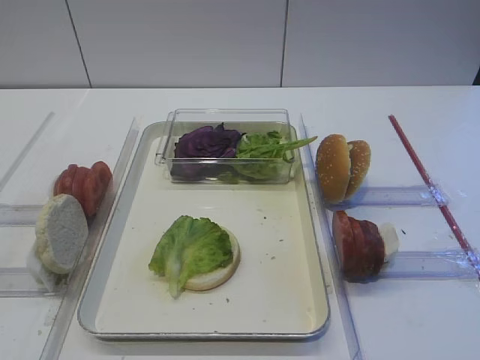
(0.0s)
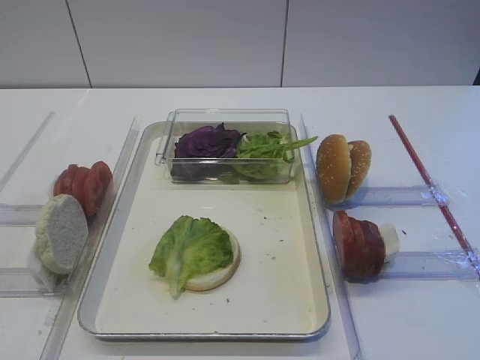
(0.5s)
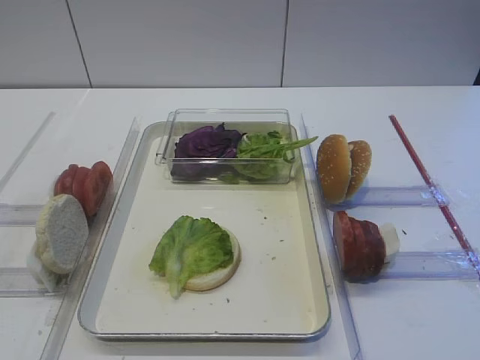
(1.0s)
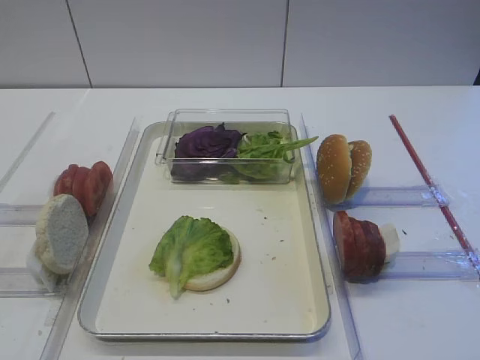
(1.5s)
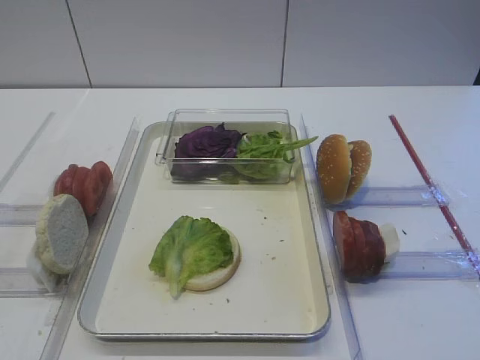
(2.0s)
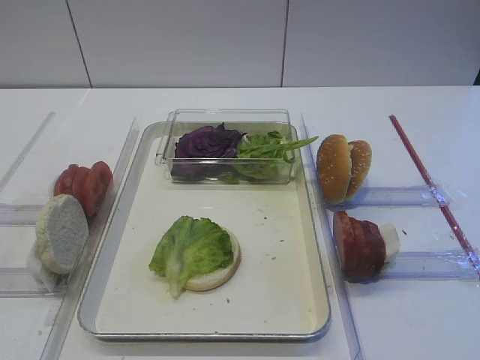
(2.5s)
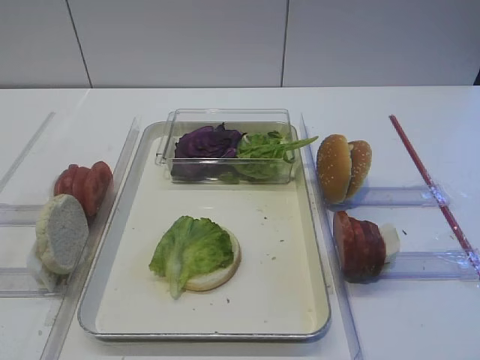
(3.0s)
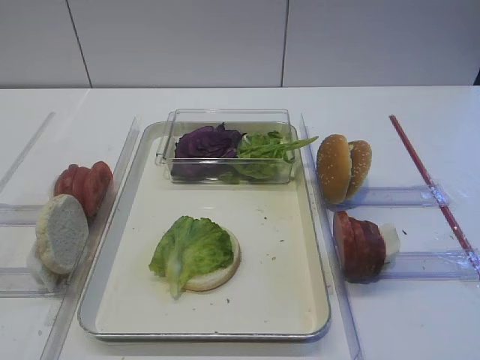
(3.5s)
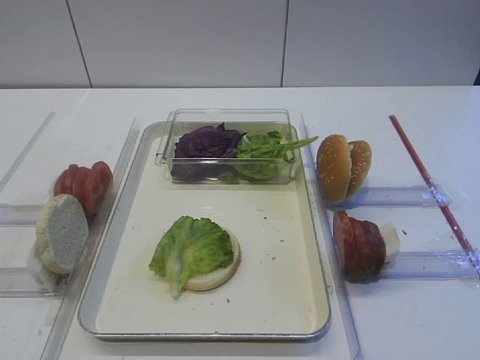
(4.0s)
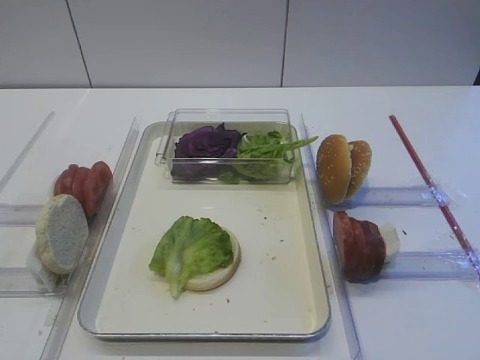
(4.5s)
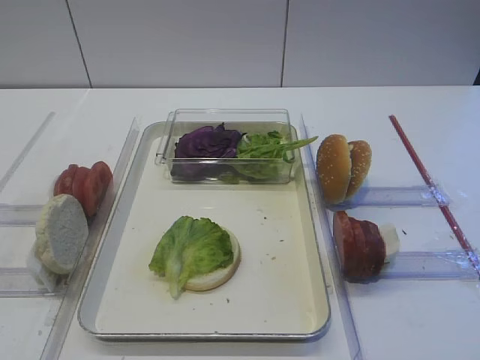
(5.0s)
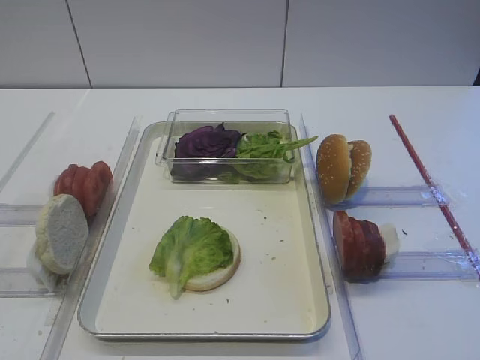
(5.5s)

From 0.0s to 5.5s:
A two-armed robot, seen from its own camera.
From 0.0s to 5.5s: Both grippers stay about where they are.

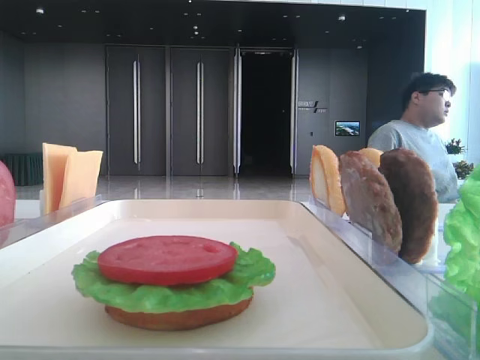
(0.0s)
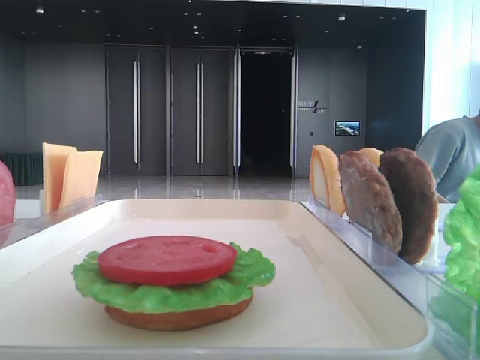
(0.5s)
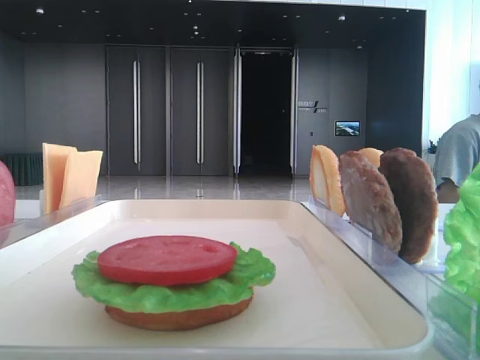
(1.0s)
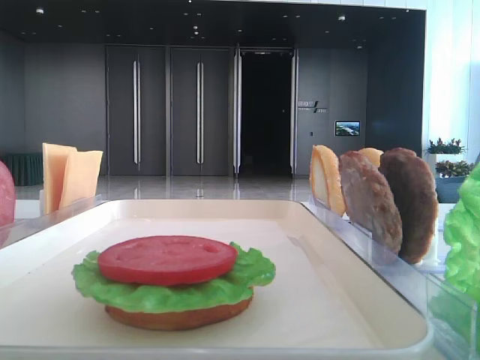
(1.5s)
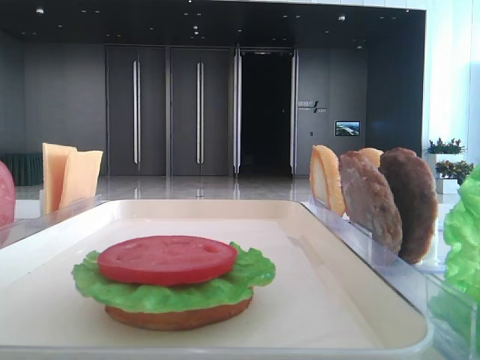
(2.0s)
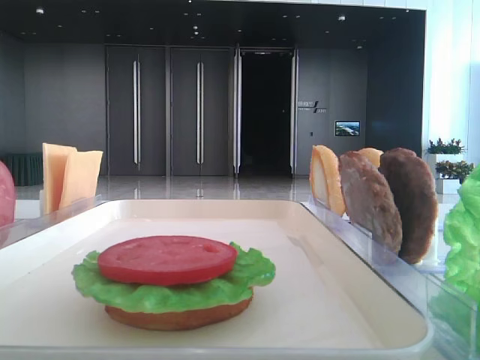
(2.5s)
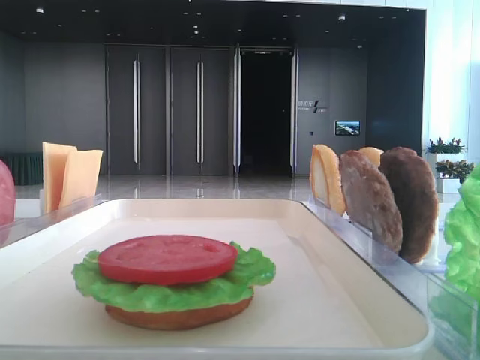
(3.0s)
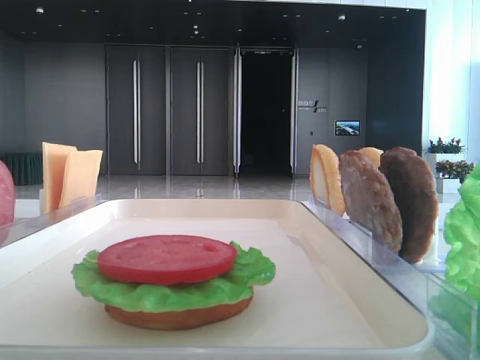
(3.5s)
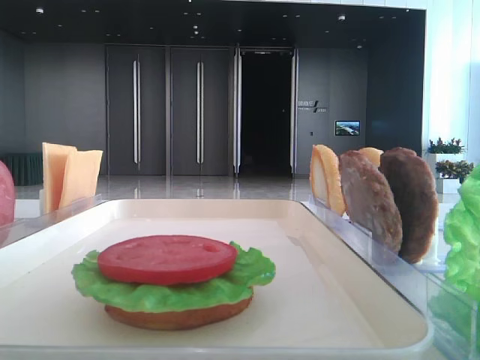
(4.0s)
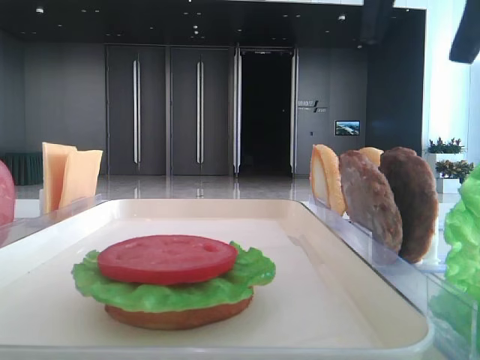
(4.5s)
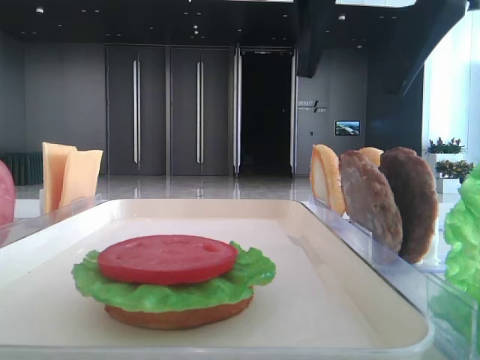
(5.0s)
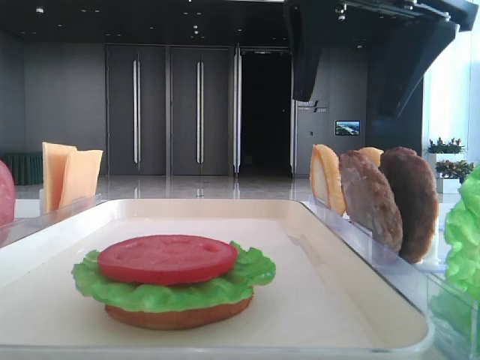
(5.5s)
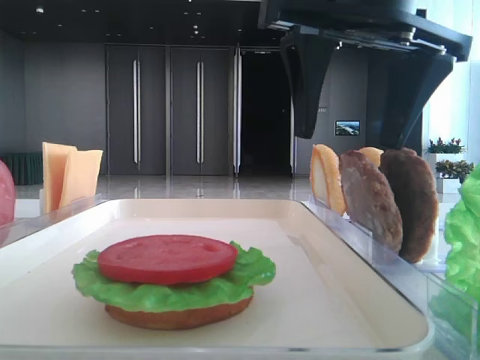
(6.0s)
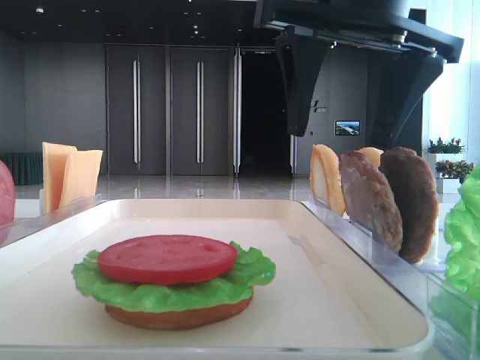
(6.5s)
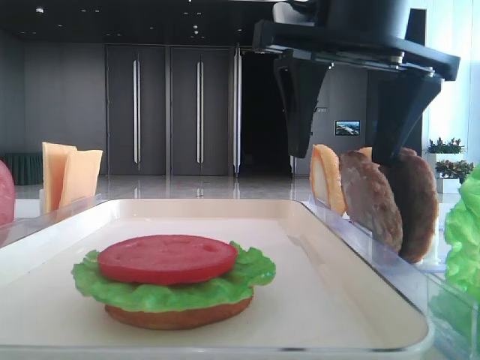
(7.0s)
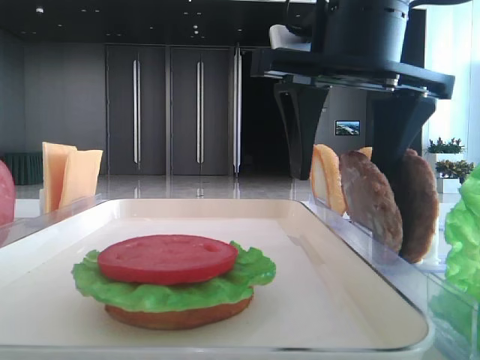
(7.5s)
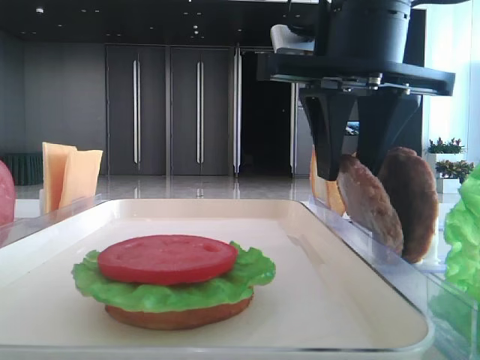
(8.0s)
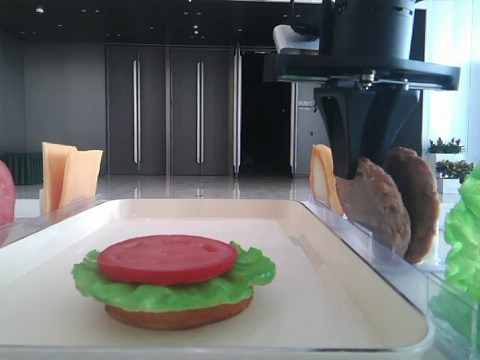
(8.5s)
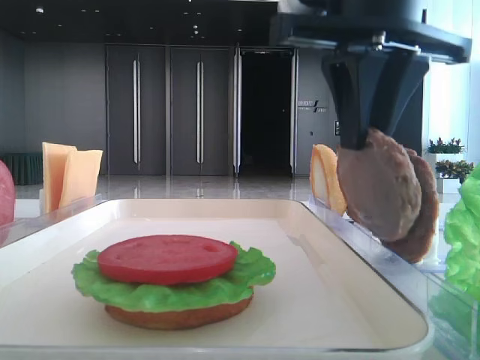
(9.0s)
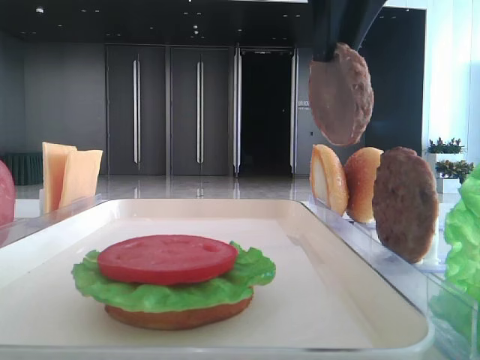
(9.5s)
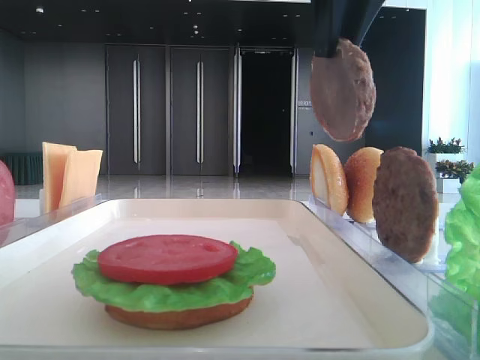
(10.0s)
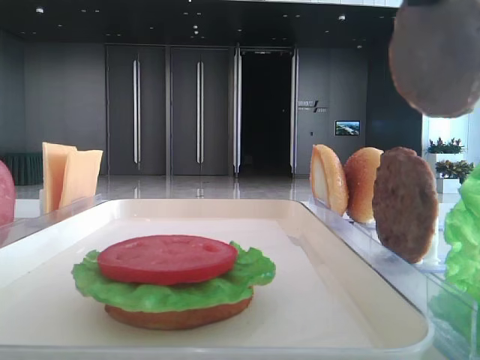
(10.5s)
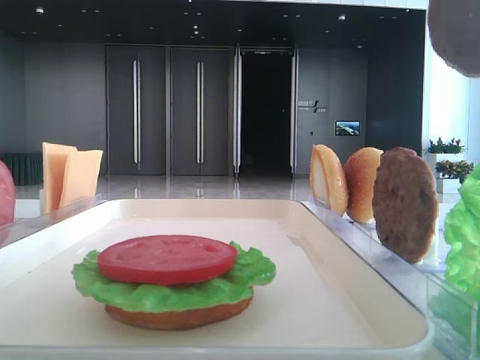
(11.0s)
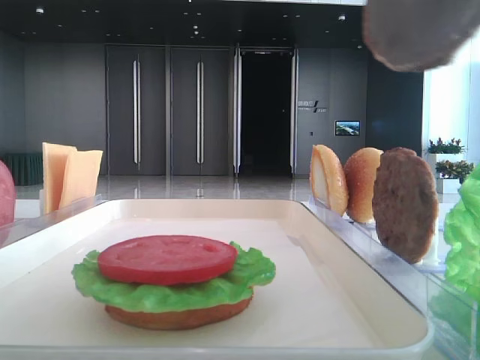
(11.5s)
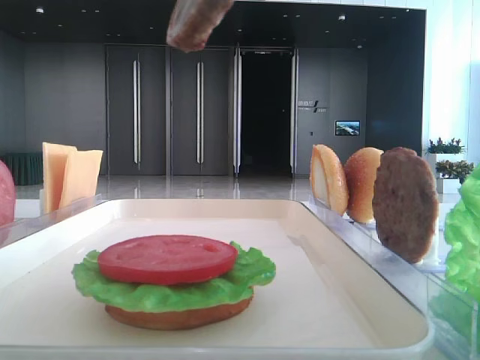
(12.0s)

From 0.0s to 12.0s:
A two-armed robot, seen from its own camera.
Step, from 0.0s to 8.5s: Grab the patty with the right hand.
From 4.0s to 6.0s: The right gripper moves to the left and downward, approximately 20 cm.
From 6.0s to 8.0s: The right gripper closes its fingers.
From 8.0s to 10.0s: The right gripper travels upward by some 10 cm.
From 10.0s to 12.0s: The right gripper travels backward by approximately 10 cm.

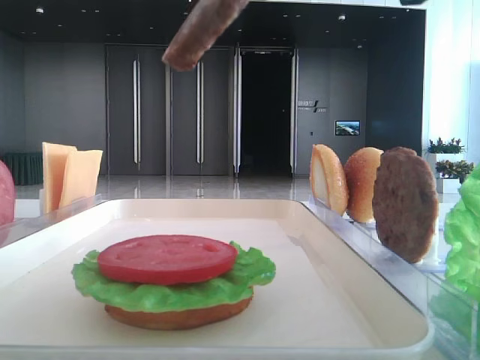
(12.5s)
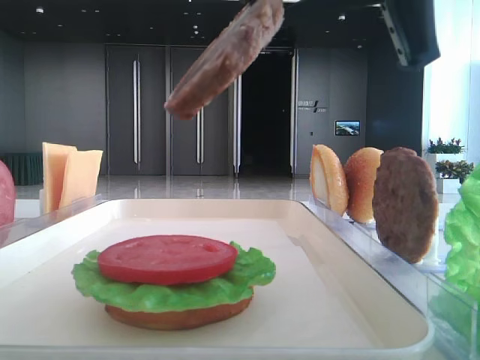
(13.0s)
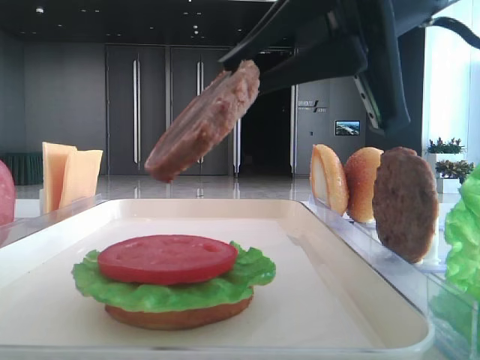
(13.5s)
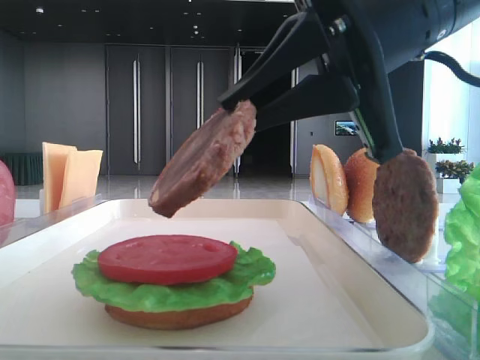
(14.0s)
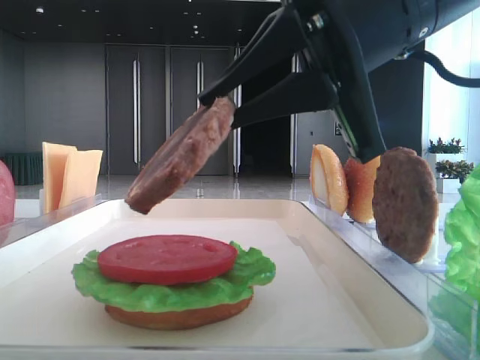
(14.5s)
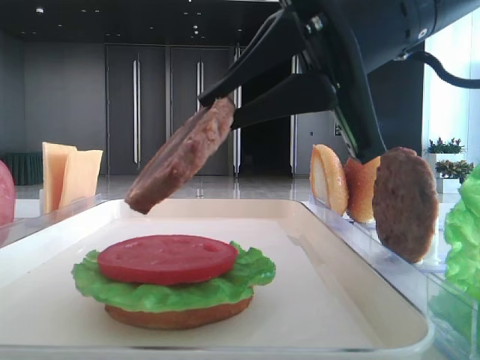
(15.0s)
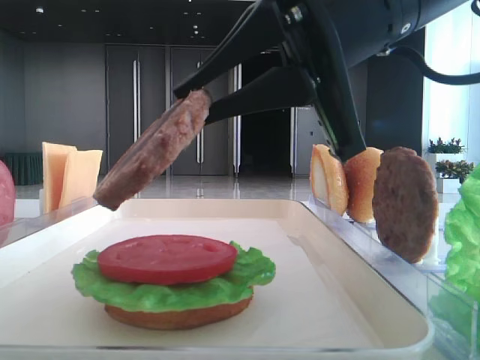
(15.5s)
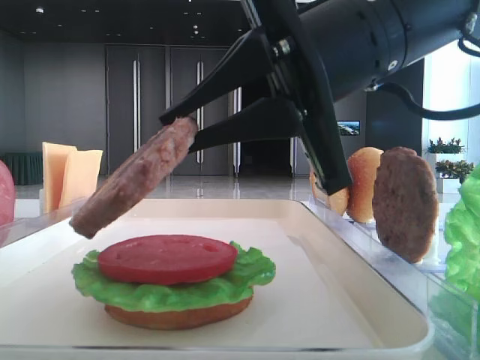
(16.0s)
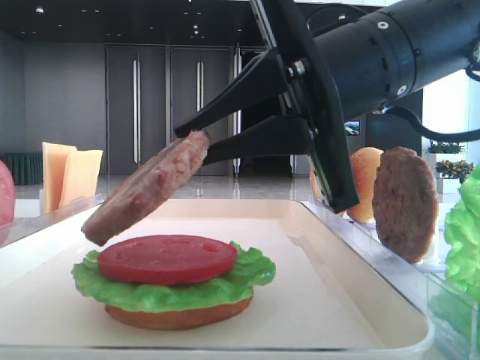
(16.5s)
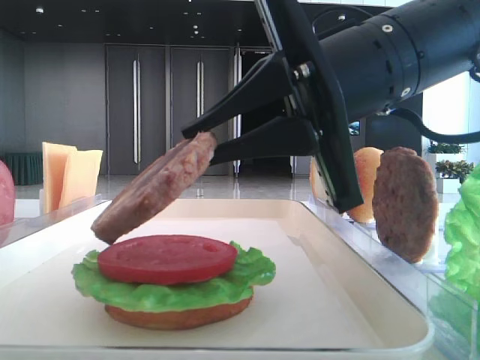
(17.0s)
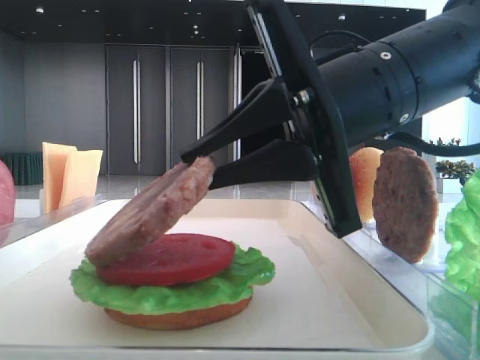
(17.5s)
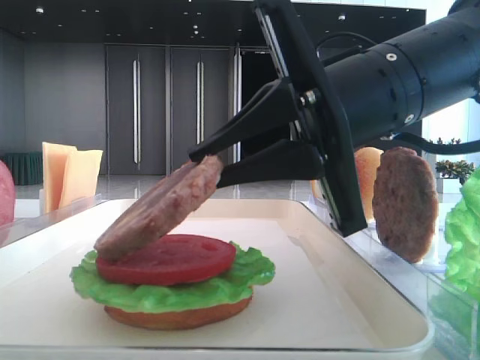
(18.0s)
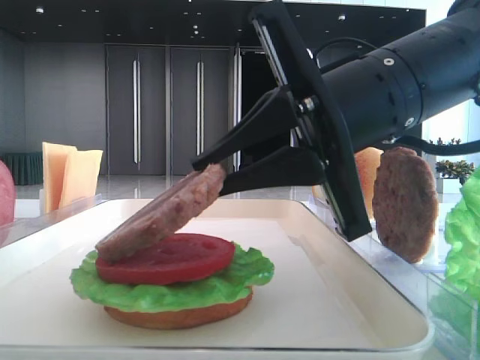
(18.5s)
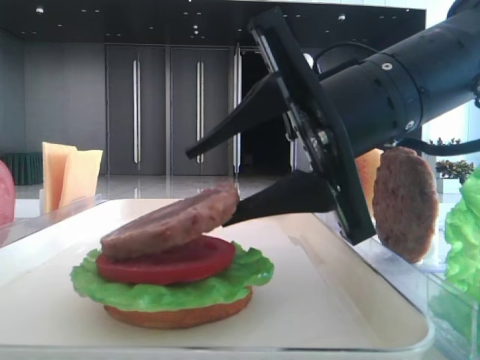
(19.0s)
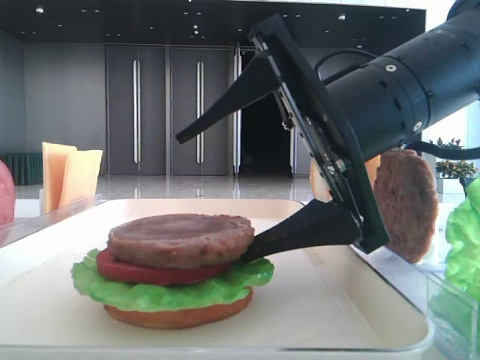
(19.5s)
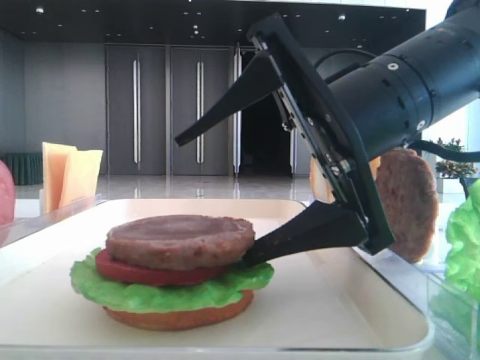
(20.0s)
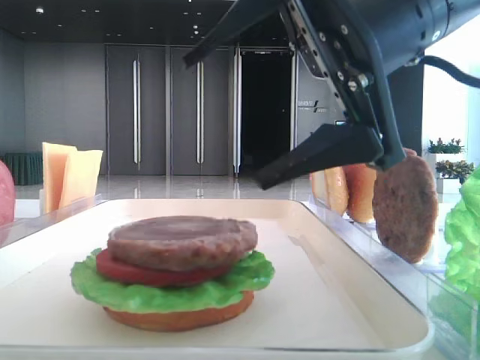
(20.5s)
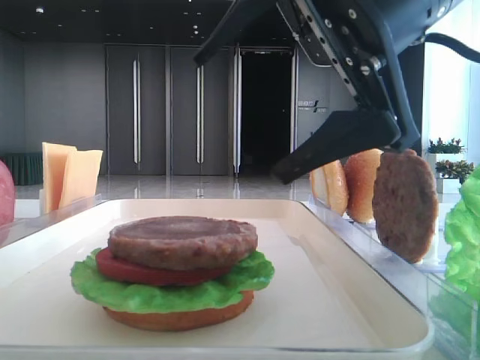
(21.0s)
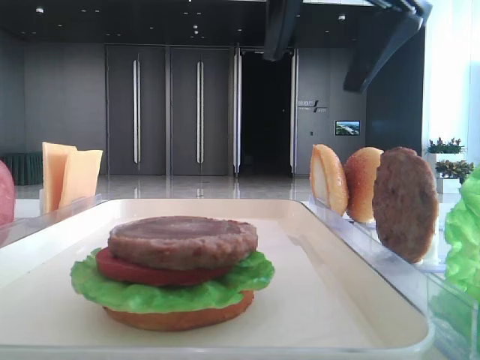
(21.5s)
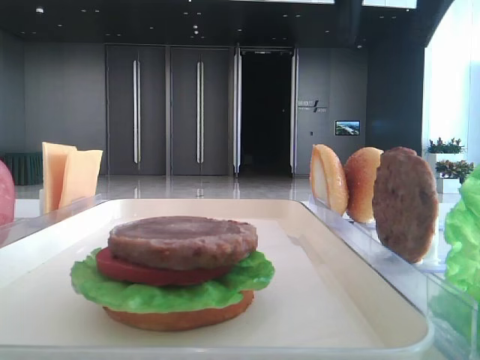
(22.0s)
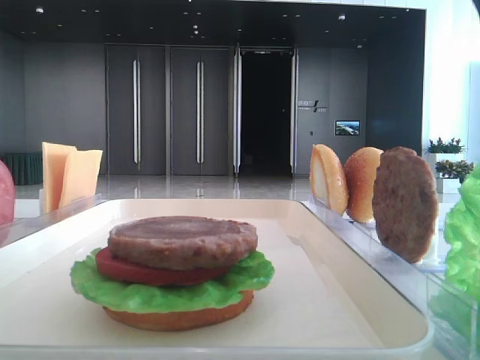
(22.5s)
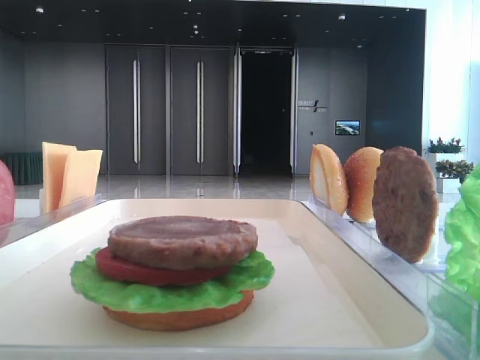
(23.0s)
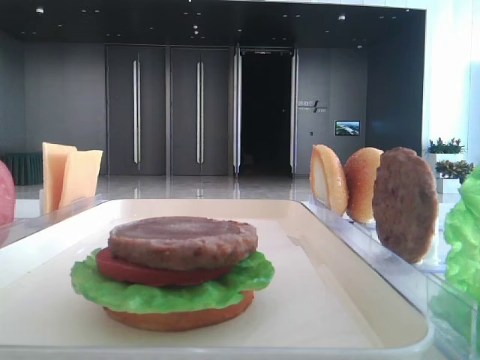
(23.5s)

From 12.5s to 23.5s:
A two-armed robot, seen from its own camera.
Step, from 12.5s to 20.0s: Place the patty on the tomato slice with the right hand.
From 12.5s to 14.5s: The right gripper shifts roughly 10 cm downward.
From 14.5s to 18.0s: The grippers move only a little.
From 18.0s to 20.0s: The right gripper opens.
From 20.0s to 21.5s: The right gripper goes approximately 15 cm upward.
From 21.5s to 23.5s: The right gripper is displaced to the right and upward by some 25 cm.
